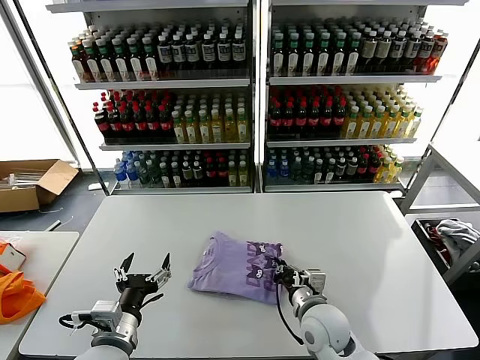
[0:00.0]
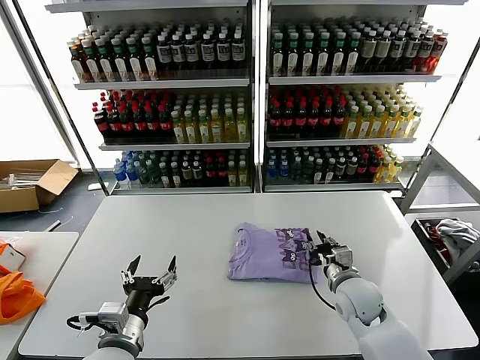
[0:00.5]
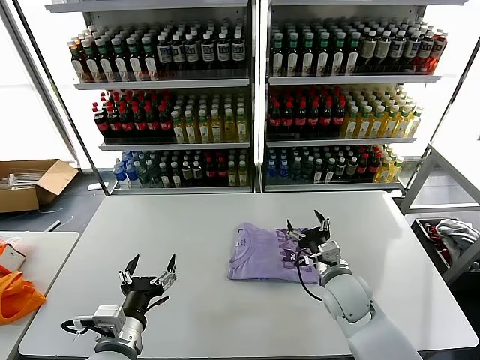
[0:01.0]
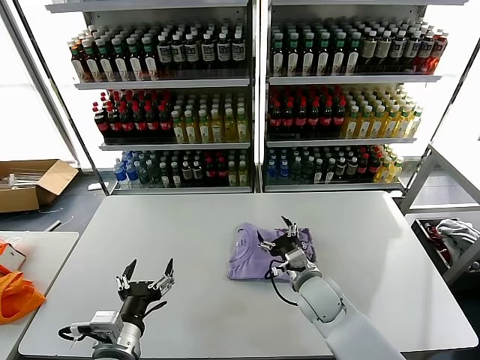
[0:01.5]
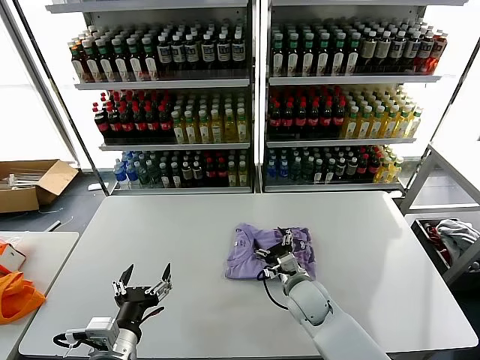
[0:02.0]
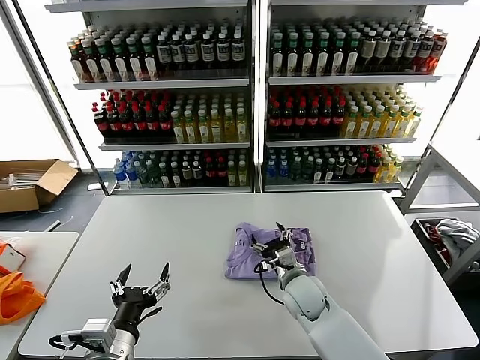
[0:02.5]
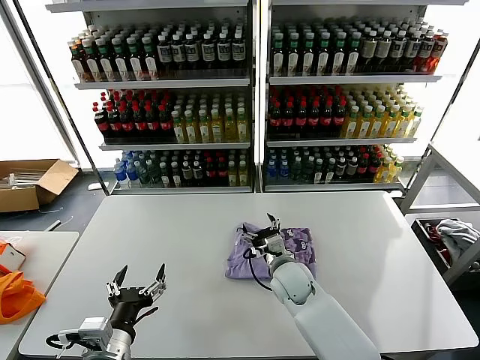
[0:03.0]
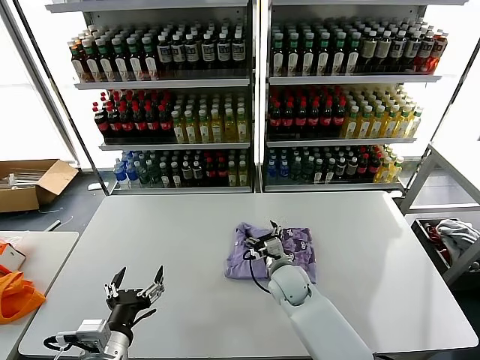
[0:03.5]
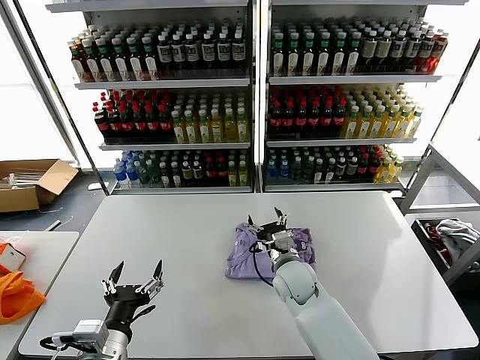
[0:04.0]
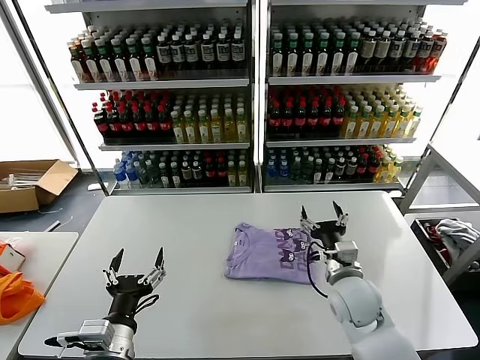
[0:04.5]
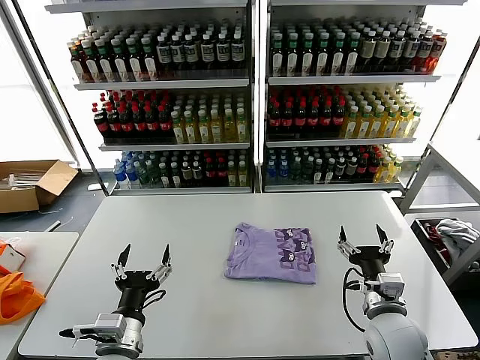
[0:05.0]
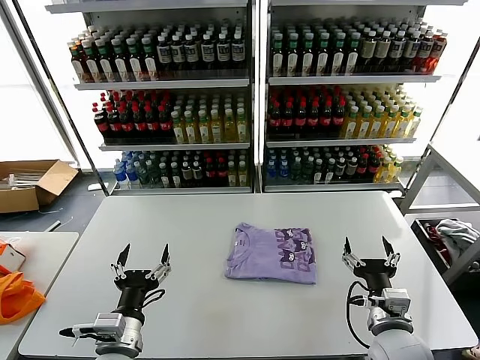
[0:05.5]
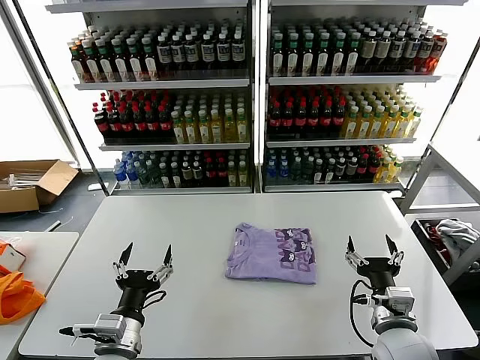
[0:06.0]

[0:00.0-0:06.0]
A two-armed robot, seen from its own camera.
Task of the whole recording: fold and organize the clothes.
Step, 0:00.0 to 0:04.0: Drag the clothes to the center of the table.
0:00.0 to 0:02.0: The right gripper travels forward by some 10 cm, goes to the right and returns, some 10 cm each way, and opens.
0:02.0 to 0:04.0: The right gripper moves about 5 cm.
0:04.0 to 0:06.0: The right gripper travels backward and to the right by some 25 cm.
